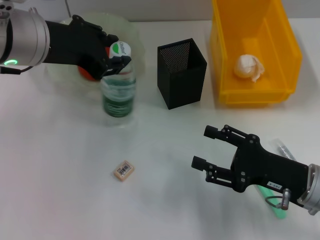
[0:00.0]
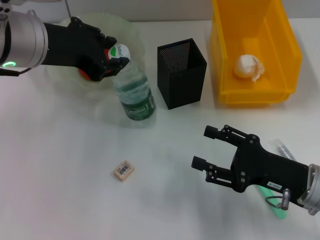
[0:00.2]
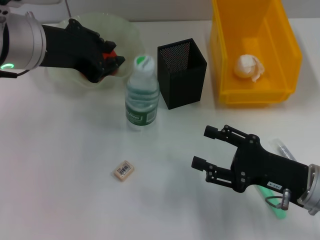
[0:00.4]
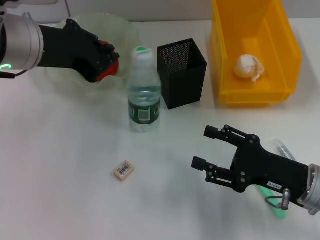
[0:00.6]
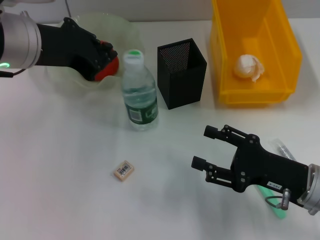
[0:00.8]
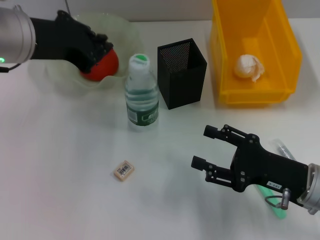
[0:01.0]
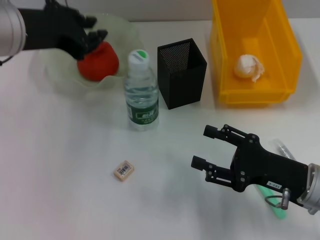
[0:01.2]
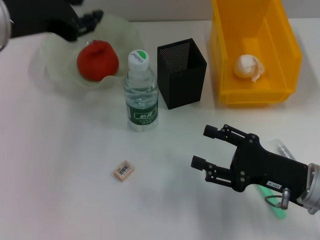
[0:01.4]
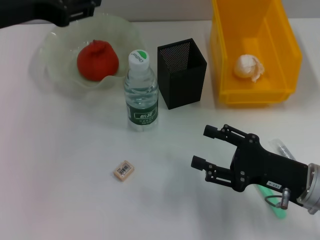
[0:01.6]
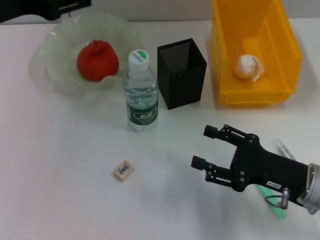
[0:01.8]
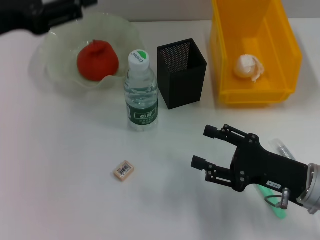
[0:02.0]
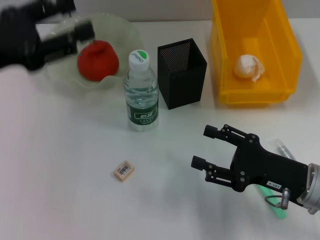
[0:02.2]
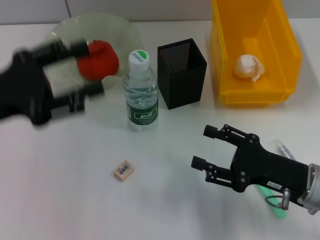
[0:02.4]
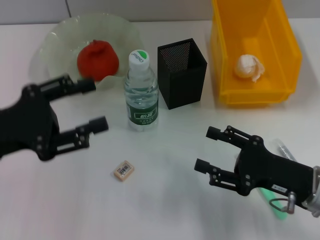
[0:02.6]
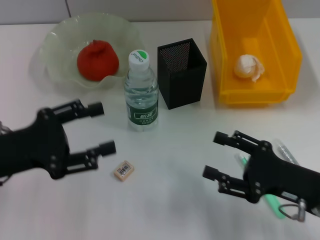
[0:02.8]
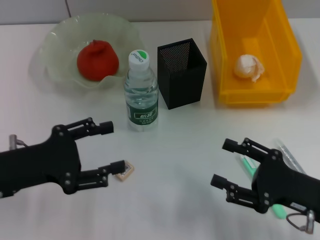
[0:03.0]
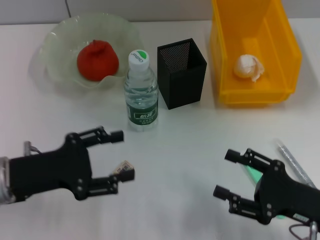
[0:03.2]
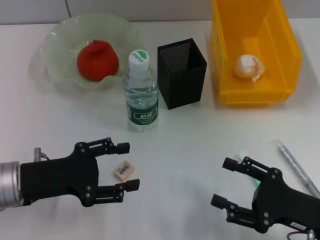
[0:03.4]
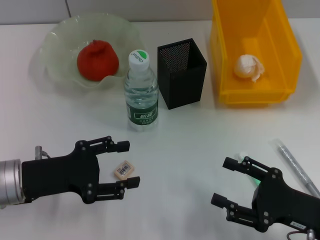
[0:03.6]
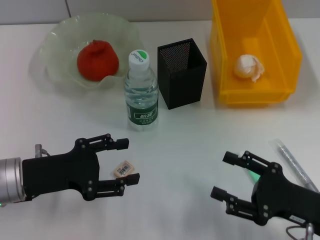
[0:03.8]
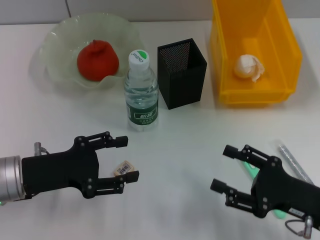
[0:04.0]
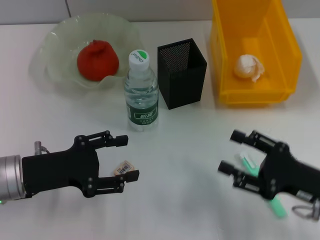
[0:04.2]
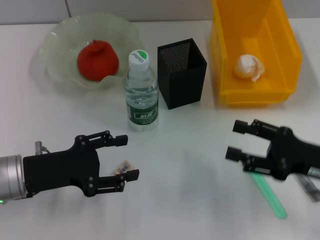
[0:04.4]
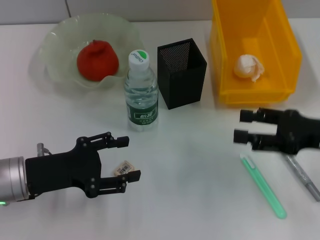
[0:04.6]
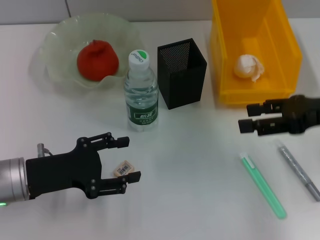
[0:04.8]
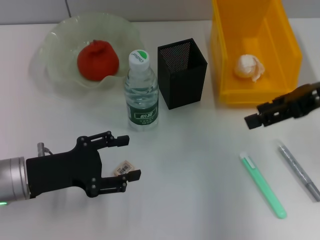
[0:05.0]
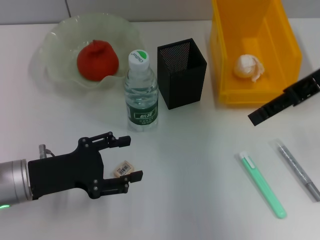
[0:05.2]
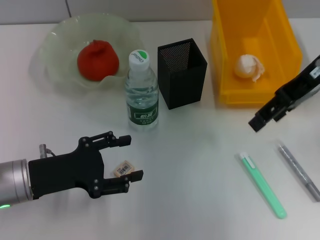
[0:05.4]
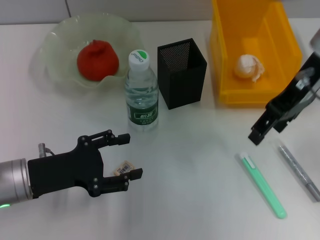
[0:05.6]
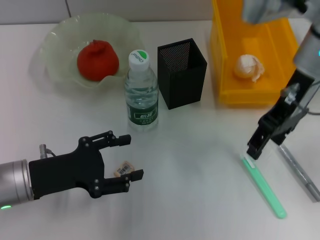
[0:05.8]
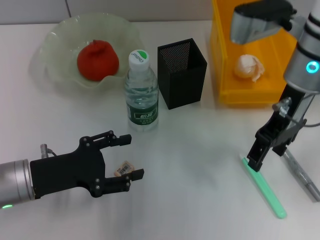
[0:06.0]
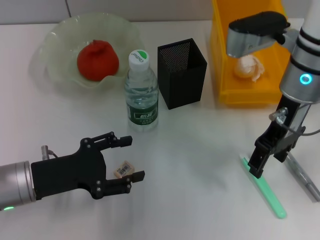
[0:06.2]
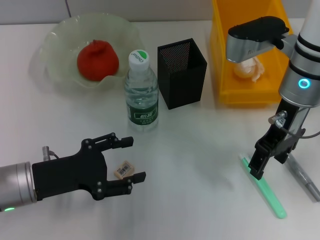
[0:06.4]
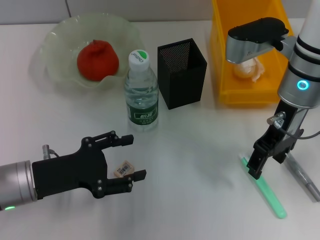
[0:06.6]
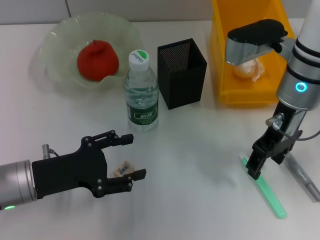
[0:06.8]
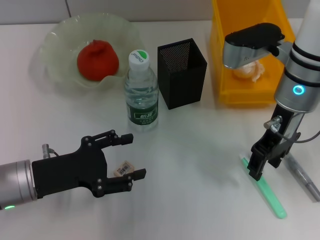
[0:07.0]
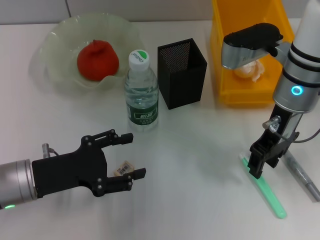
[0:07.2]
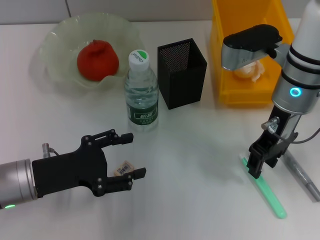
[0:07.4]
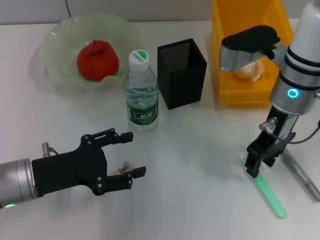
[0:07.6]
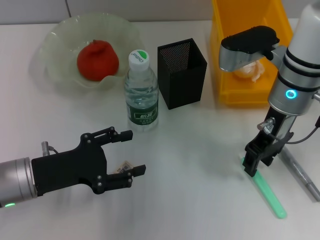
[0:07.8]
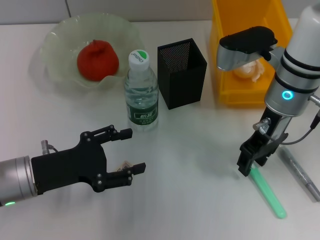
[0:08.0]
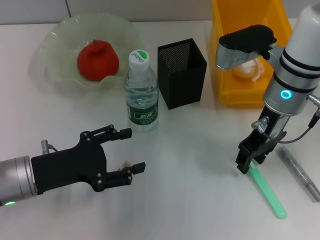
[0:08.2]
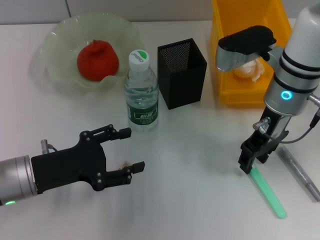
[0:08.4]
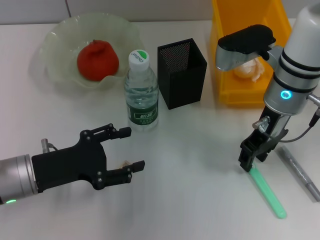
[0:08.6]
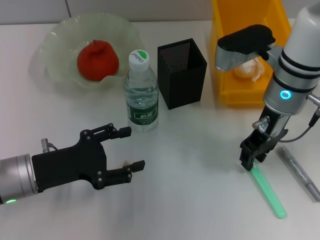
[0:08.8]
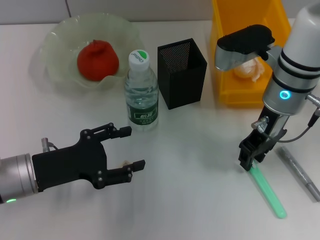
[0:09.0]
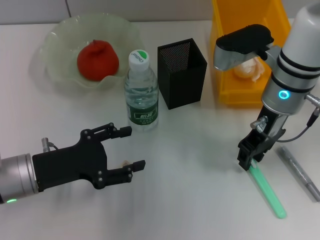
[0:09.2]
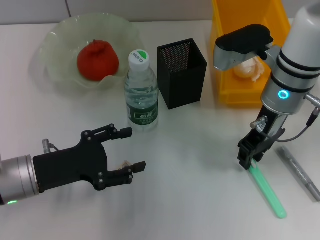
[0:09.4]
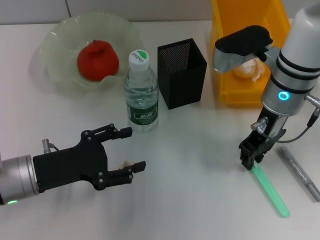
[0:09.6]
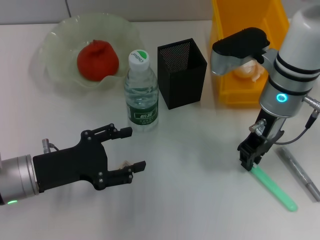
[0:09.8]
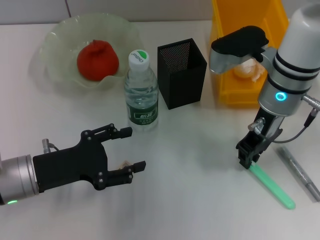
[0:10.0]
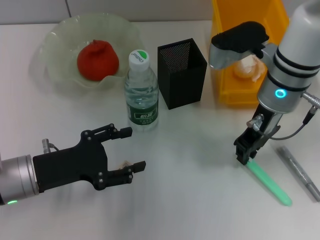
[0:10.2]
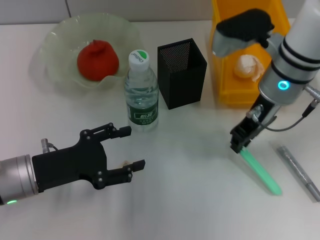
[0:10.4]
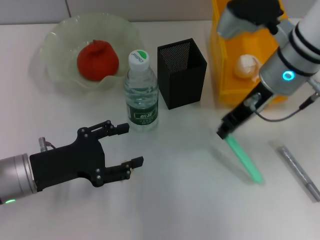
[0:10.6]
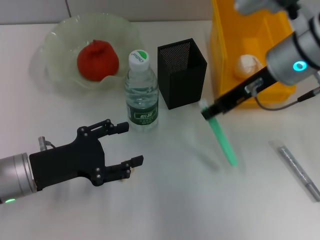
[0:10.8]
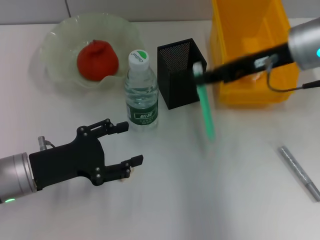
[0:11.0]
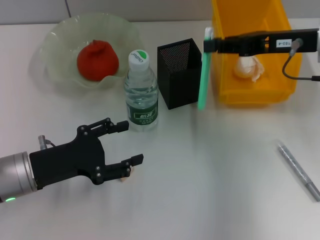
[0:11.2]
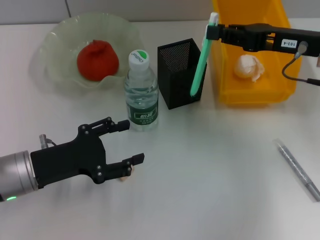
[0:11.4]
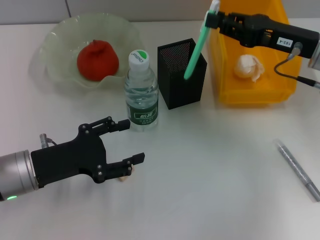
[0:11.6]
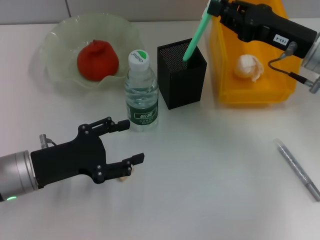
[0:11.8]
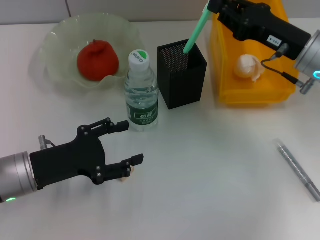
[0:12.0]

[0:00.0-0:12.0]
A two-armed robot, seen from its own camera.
Step, 0:01.2 to 0:09.6: Grab the blue utility knife with the right hand.
0:00.0 to 0:01.6: The left gripper heads to the left, covering roughly 5 cm, and closes, then opens again.
0:01.6 to 0:03.0: The left gripper is displaced downward and backward by about 20 cm, and opens.
0:03.0 to 0:04.4: The right gripper changes place by approximately 5 cm.
0:04.4 to 0:06.0: The right gripper heads forward, upward and to the left, covering about 20 cm.
0:06.0 to 0:07.6: The right gripper closes.
0:07.6 to 0:09.0: Neither gripper changes place.
0:09.0 to 0:10.4: The grippers move only a little.
0:10.4 to 0:12.0: The right gripper heads to the right, covering approximately 10 cm.

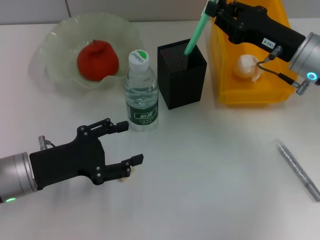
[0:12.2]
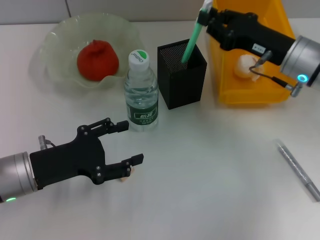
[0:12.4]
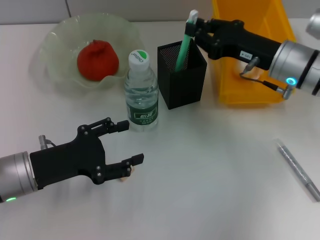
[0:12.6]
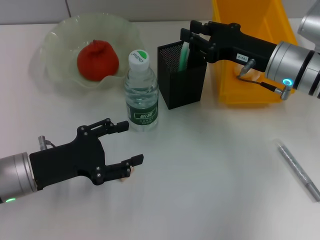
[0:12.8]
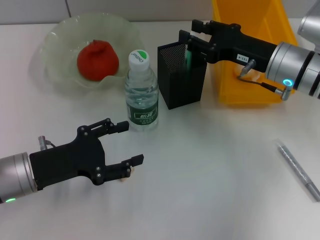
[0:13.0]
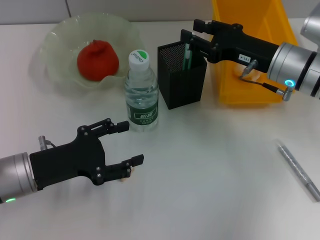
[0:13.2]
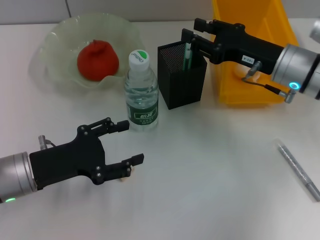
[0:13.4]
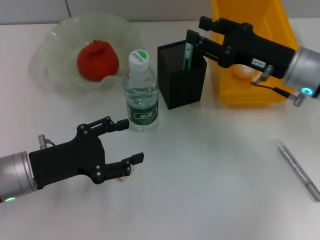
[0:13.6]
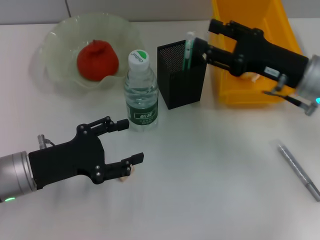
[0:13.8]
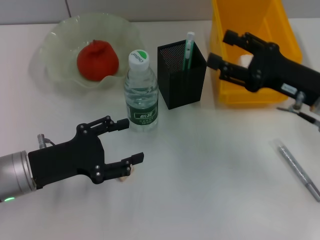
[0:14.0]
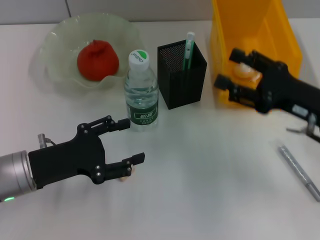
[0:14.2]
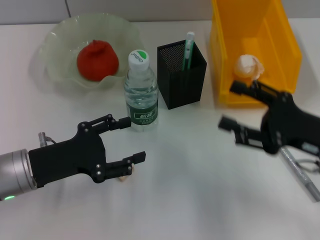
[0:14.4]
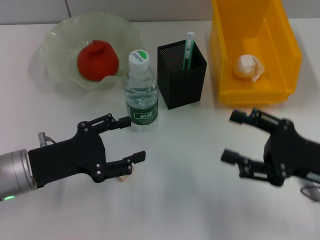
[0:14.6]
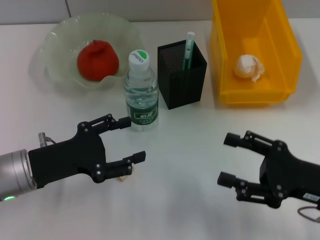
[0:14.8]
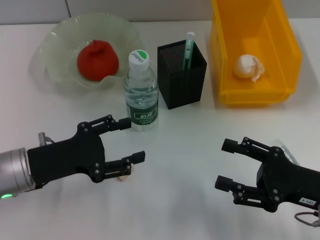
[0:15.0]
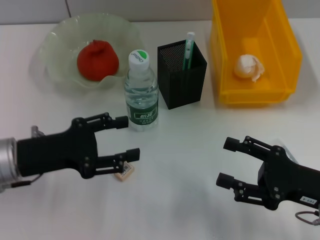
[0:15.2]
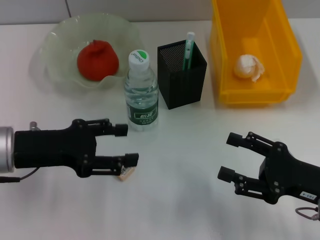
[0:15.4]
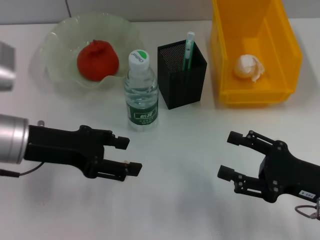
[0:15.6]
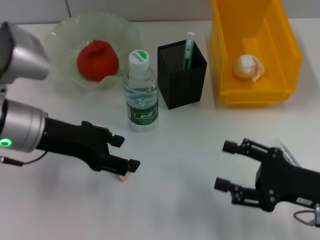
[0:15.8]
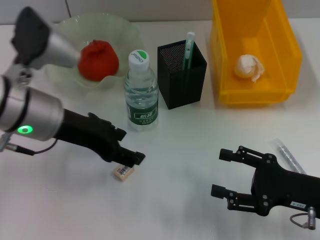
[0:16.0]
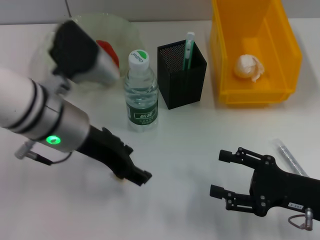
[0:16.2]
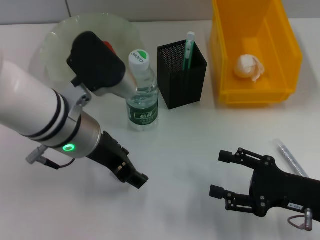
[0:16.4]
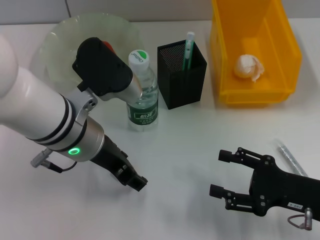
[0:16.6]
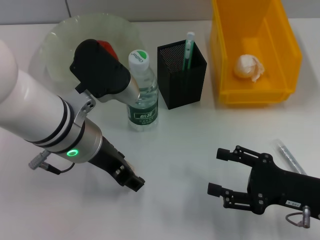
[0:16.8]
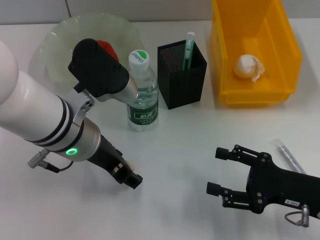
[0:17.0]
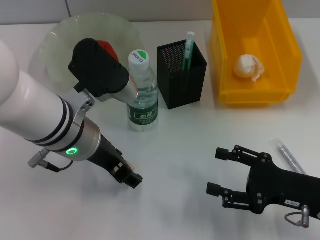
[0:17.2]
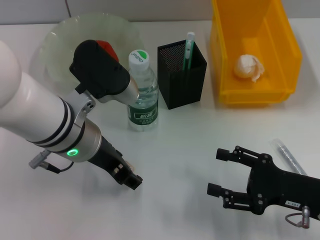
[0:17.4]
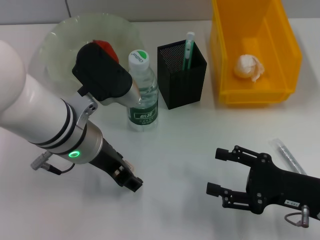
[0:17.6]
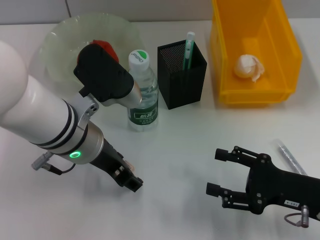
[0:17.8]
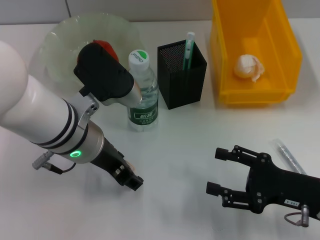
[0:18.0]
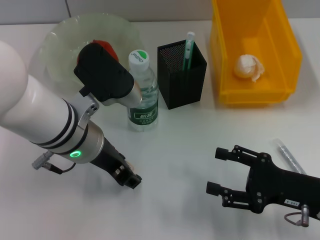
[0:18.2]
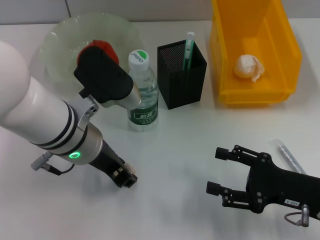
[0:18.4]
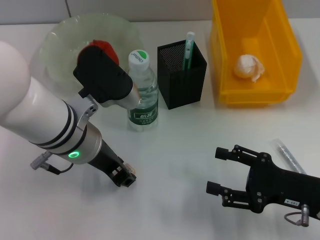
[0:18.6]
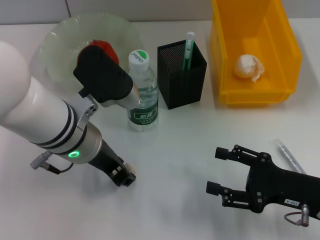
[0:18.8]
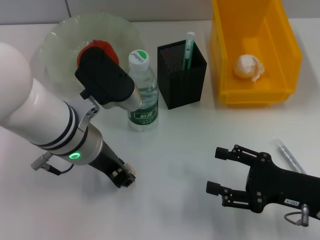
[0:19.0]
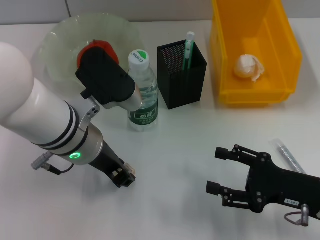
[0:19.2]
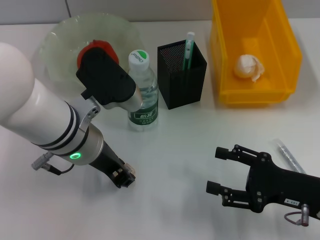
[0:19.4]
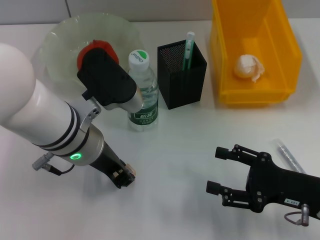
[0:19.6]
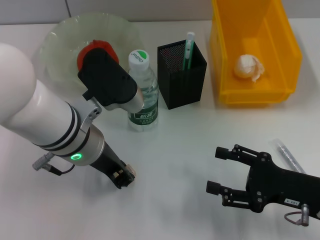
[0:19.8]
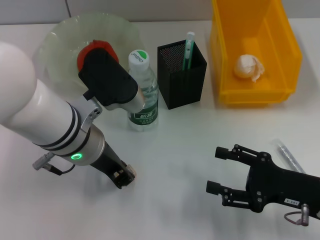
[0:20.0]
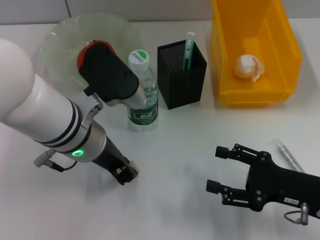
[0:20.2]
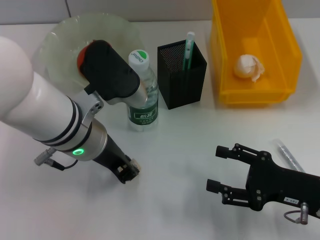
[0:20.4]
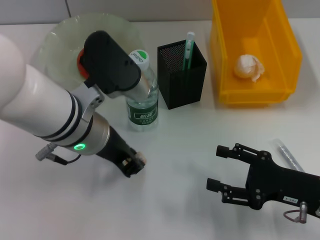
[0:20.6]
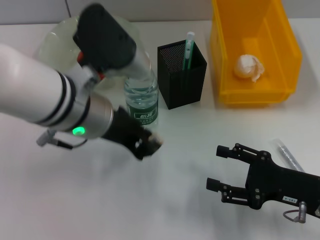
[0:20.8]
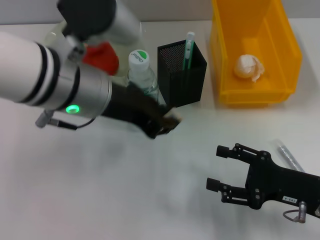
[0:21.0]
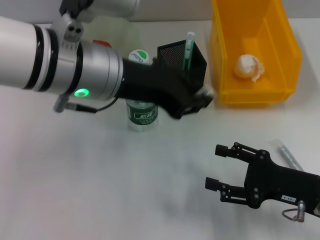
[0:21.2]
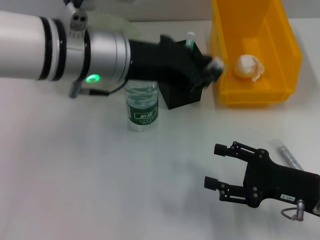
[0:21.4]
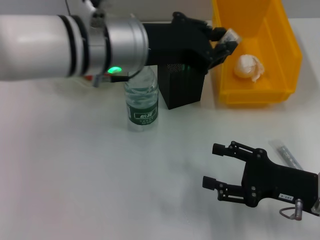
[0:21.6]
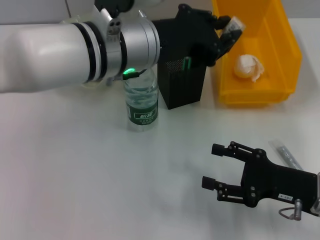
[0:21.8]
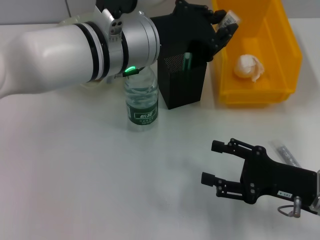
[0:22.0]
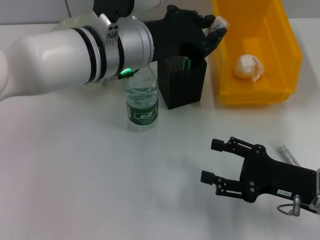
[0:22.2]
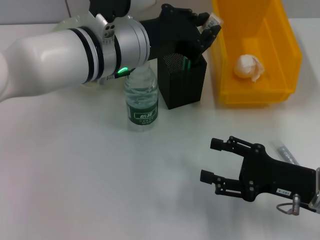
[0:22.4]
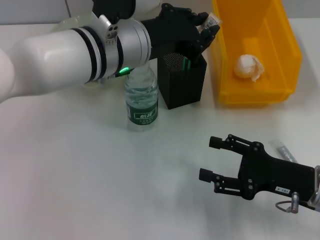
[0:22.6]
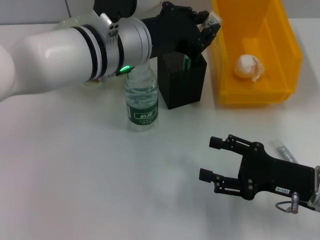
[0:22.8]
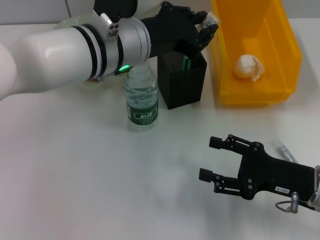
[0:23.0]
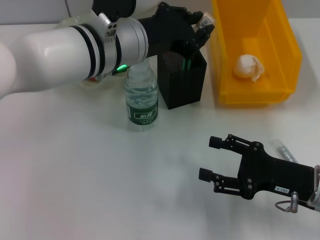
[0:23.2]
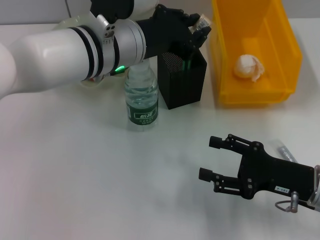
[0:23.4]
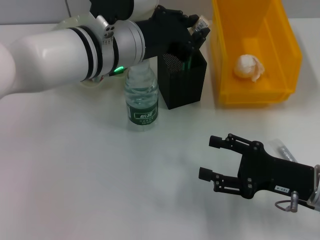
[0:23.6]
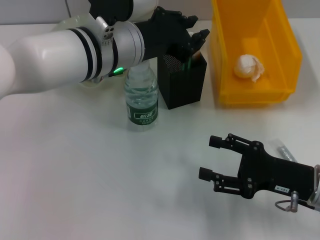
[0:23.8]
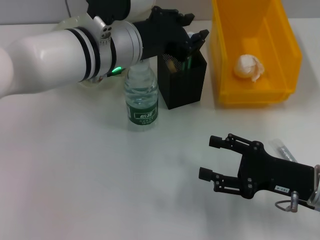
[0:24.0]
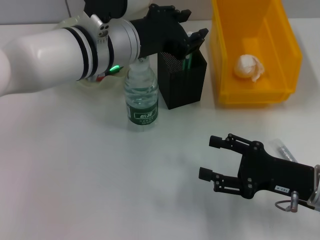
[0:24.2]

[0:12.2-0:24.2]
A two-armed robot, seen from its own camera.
Step, 0:13.2 to 0:19.8: Grab the eraser with the left hand.
Step, 0:20.0 to 0:24.2: Place the eraser into the pen holder with the left hand.
0:12.2 to 0:13.8: The right gripper opens its fingers.
0:13.8 to 0:15.2: The right gripper shifts approximately 15 cm backward and downward.
0:15.2 to 0:16.6: The left gripper moves to the right and upward, about 15 cm.
0:16.6 to 0:18.2: Both grippers stay about where they are.
0:18.2 to 0:19.8: The left gripper closes up.
0:19.8 to 0:21.2: The left gripper travels upward by some 10 cm.
0:21.2 to 0:22.6: The left gripper moves roughly 5 cm.
0:22.6 to 0:24.2: The grippers stay close to where they were, moving slightly.
